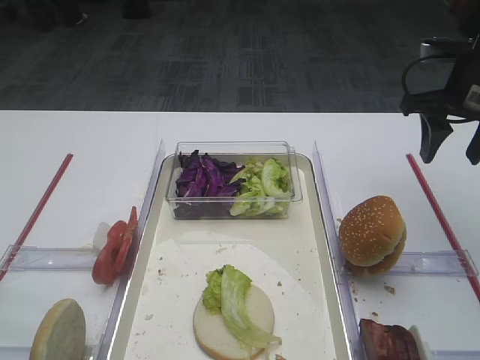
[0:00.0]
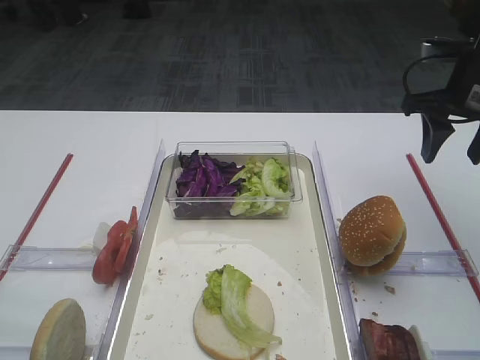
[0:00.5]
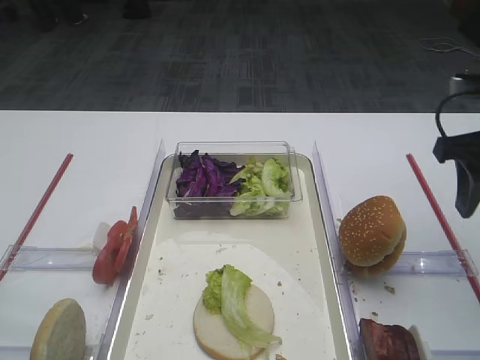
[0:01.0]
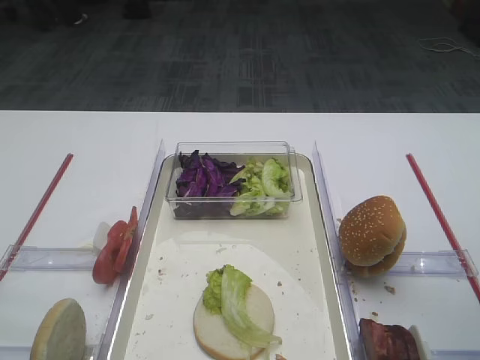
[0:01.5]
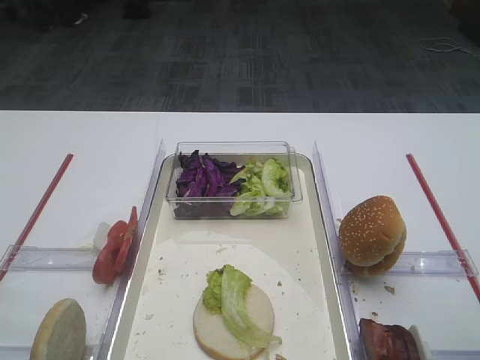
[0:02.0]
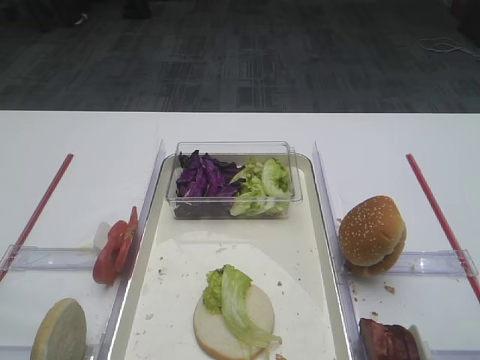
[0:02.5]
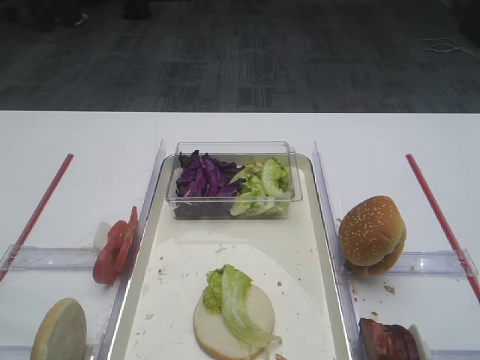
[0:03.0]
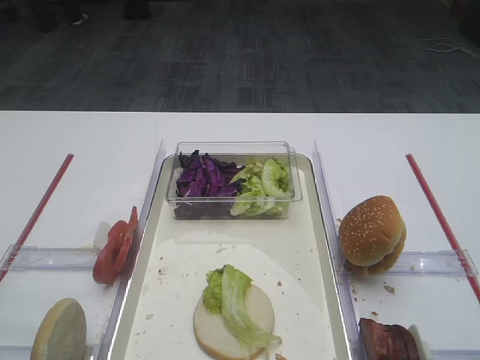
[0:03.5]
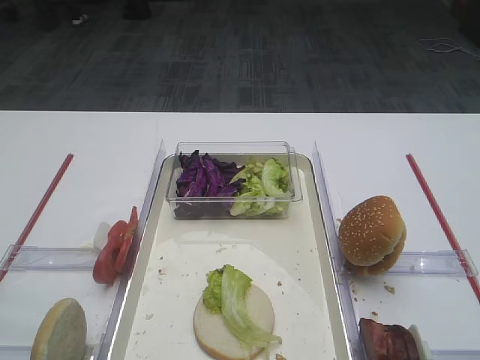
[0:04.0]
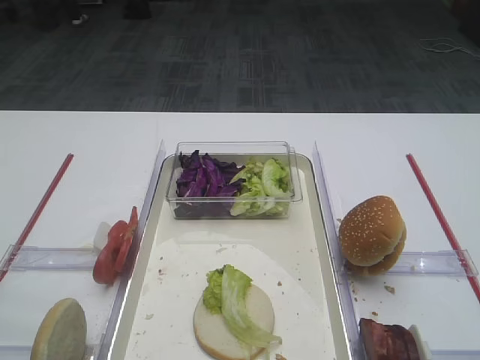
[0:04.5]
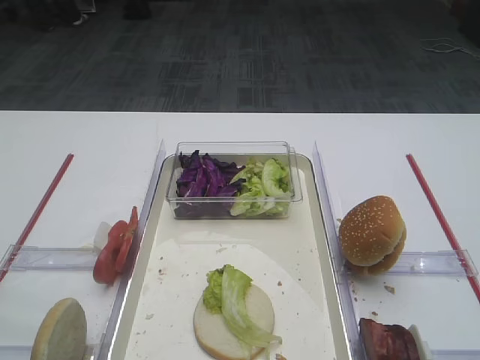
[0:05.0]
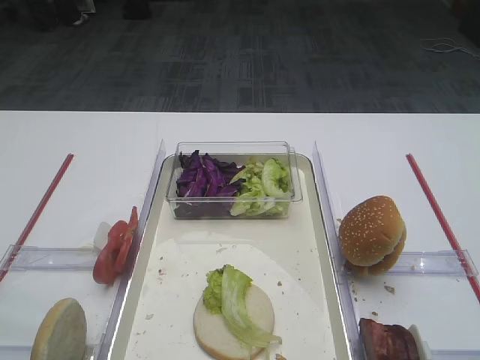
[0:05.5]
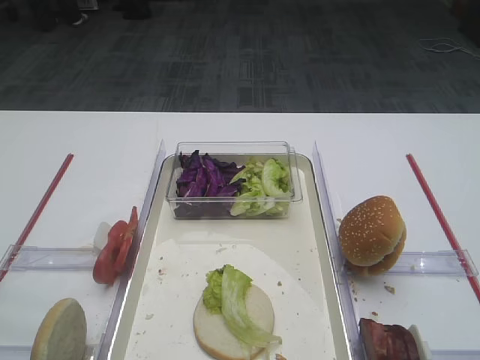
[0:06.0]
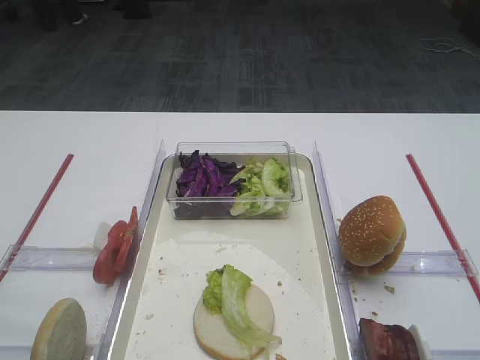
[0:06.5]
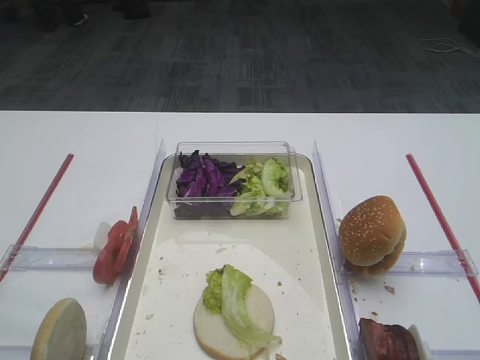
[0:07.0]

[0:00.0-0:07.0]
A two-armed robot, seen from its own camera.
0:00.0 to 0:02.0: The right gripper moves backward, roughly 25 cm.
0:05.0 to 0:07.0: Both grippers stay about where they are.
